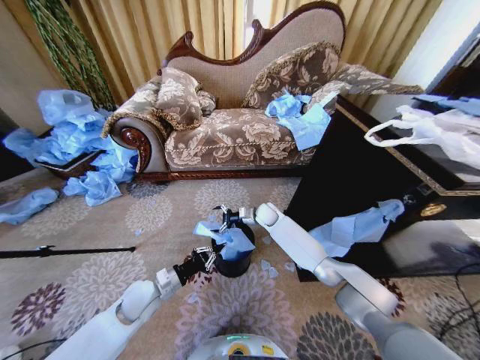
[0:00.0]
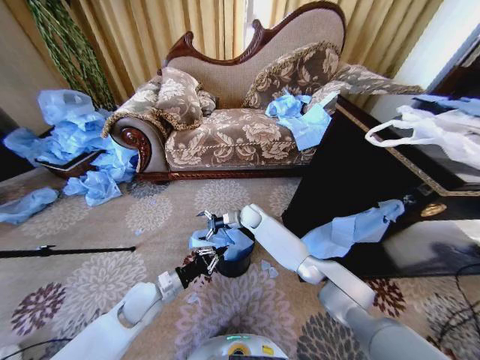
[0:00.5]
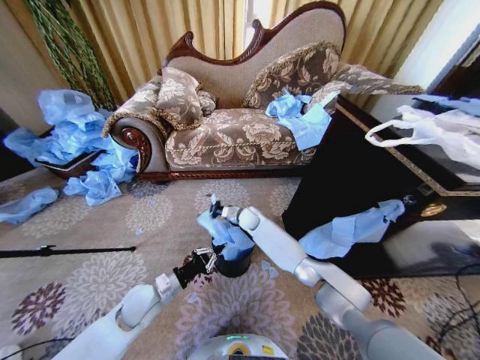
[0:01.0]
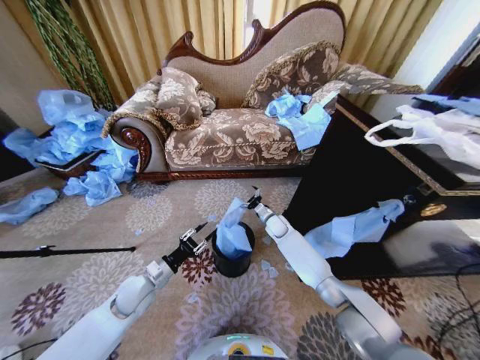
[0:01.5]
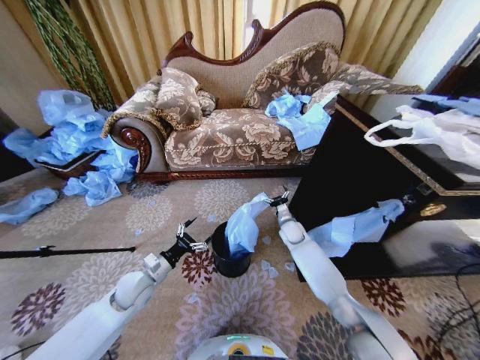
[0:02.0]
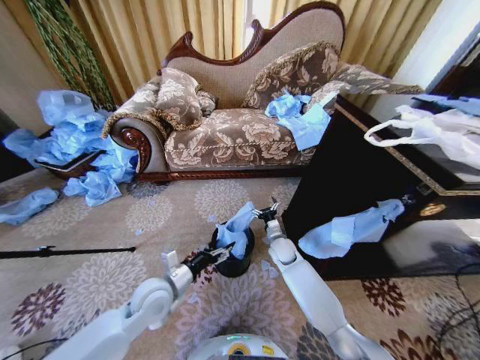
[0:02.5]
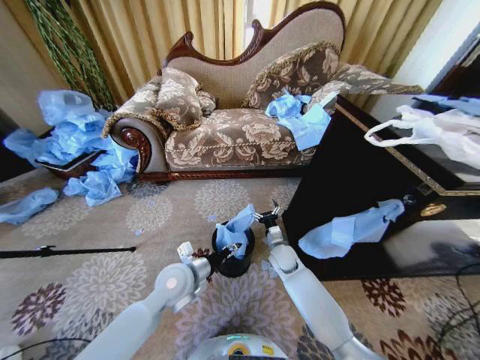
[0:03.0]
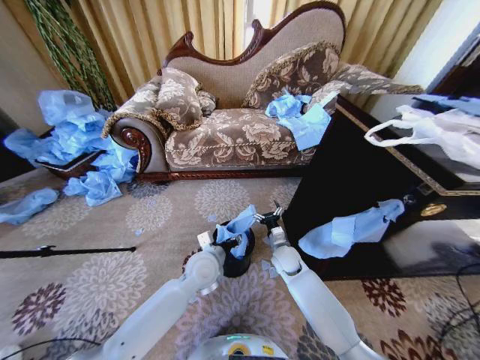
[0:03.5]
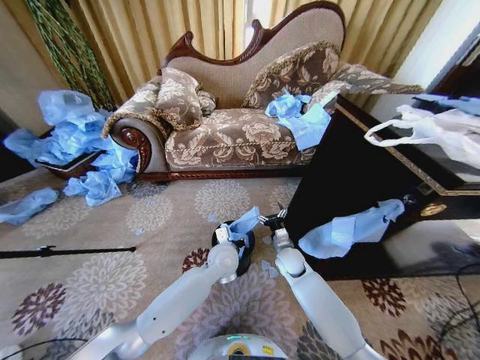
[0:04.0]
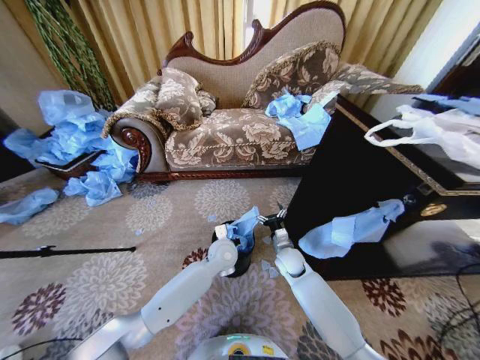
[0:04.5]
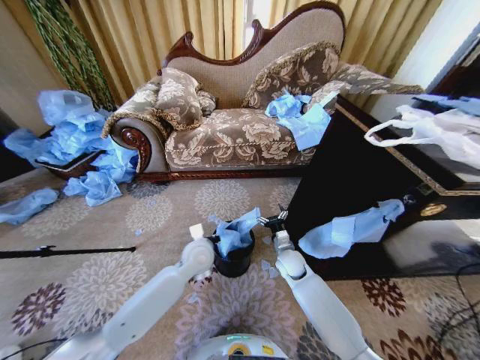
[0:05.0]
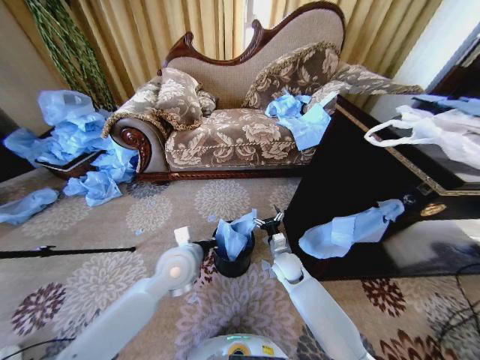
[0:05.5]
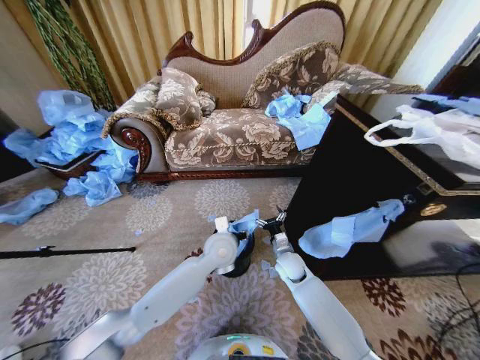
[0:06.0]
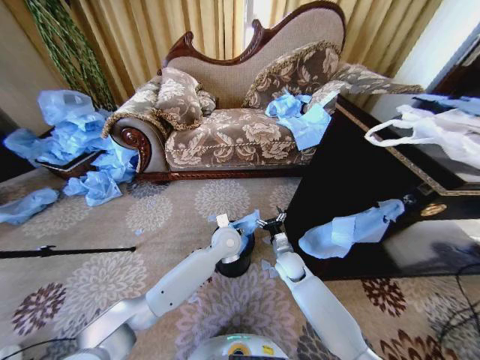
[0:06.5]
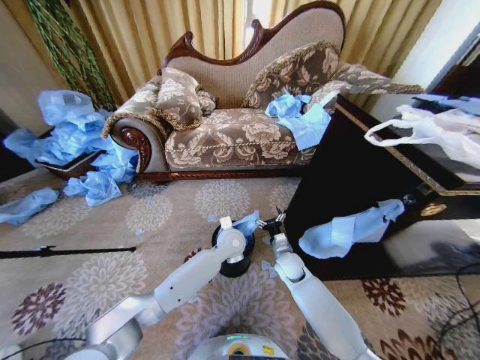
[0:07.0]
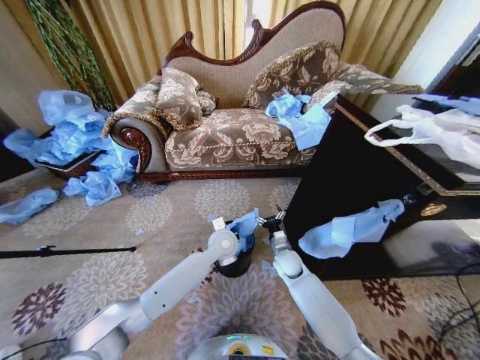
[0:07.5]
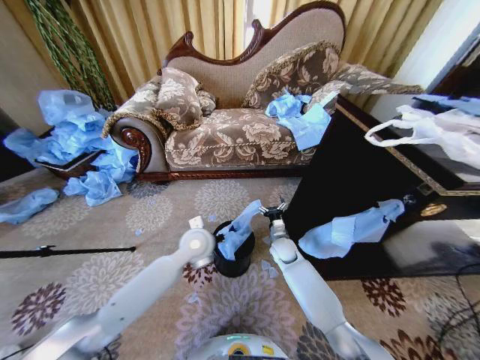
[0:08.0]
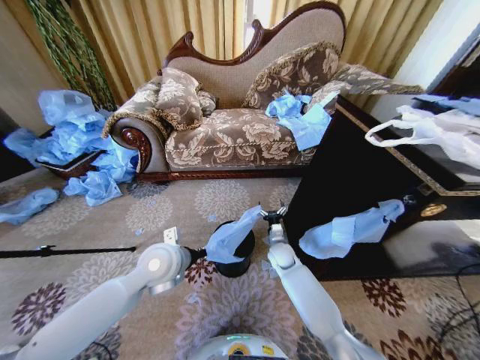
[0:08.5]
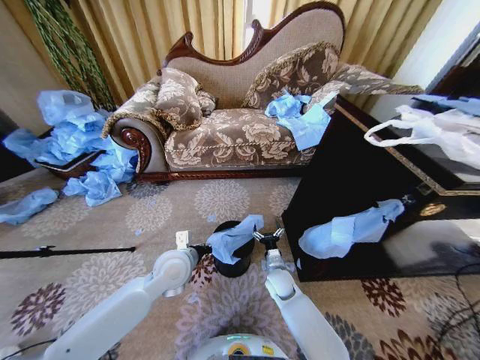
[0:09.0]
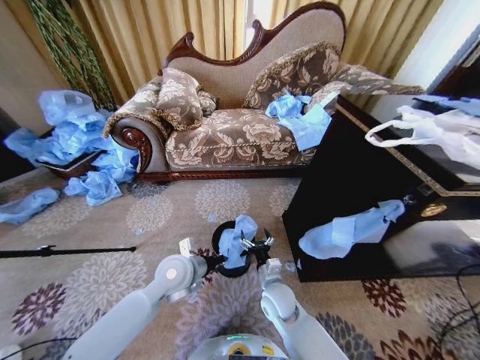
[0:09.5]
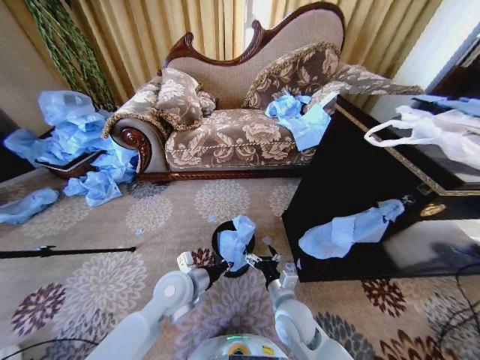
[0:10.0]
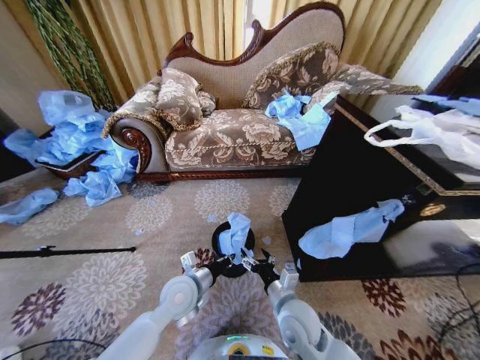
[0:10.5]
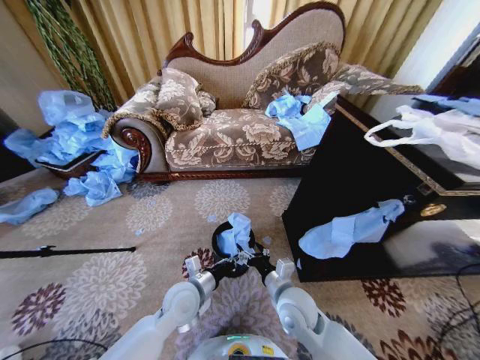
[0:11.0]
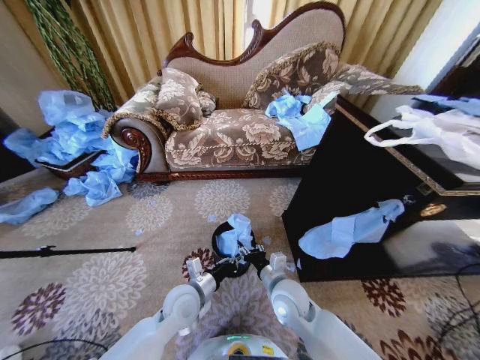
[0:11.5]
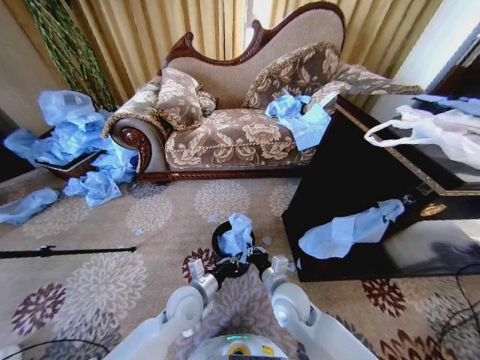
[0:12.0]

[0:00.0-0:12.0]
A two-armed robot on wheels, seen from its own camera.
Task of the whole recording: Place a garbage bag over the trash bin.
0:00.0 to 0:02.0: The right gripper goes approximately 10 cm to the right and downward. The left gripper opens its fingers.
0:02.0 to 0:04.0: The left gripper is displaced to the right by approximately 25 cm, and closes up. The right gripper goes about 10 cm backward.
0:04.0 to 0:06.0: The left gripper heads upward, covering approximately 5 cm, reaches approximately 10 cm to the left, then returns, and closes and opens again.
0:06.0 to 0:08.0: The left gripper shifts some 5 cm to the left, and closes up. The right gripper travels forward by about 5 cm.
0:08.0 to 0:10.0: The right gripper moves backward, about 25 cm. The left gripper travels backward by some 10 cm.
0:10.0 to 0:12.0: The right gripper closes up, while the left gripper heads downward, covering approximately 5 cm.

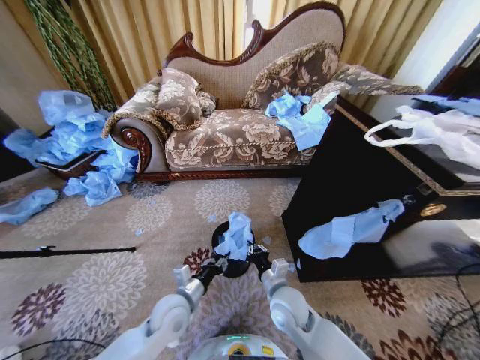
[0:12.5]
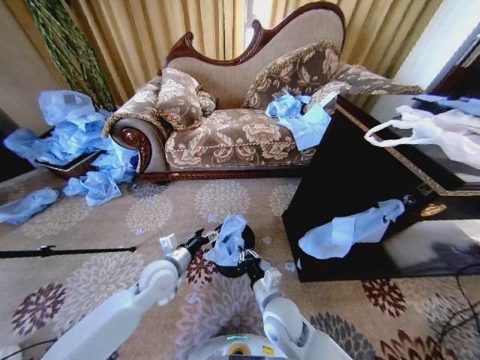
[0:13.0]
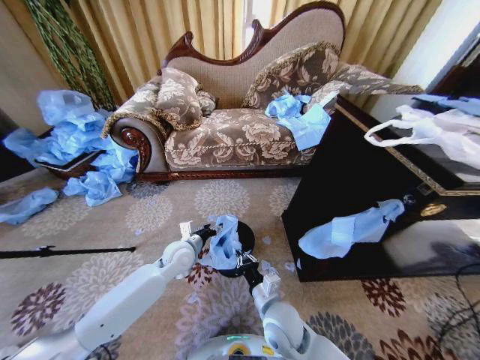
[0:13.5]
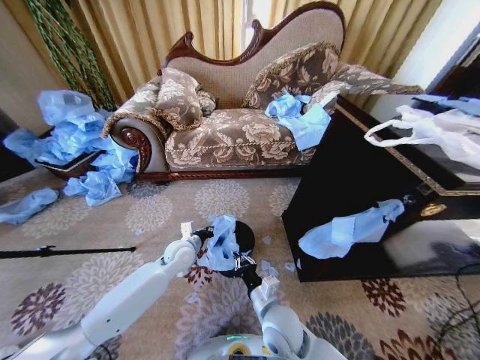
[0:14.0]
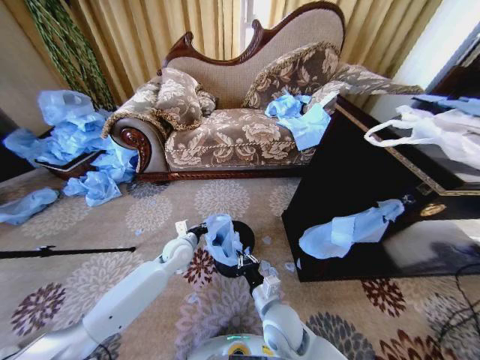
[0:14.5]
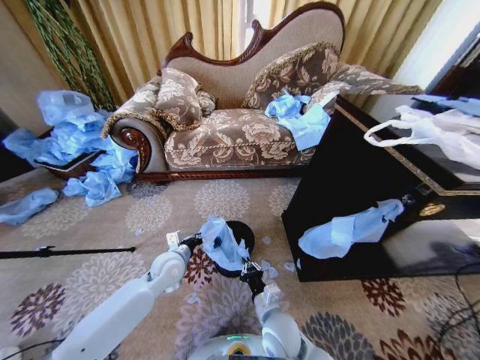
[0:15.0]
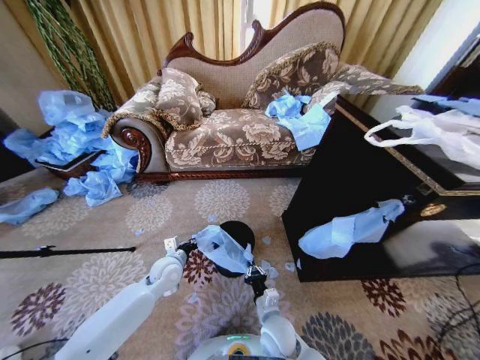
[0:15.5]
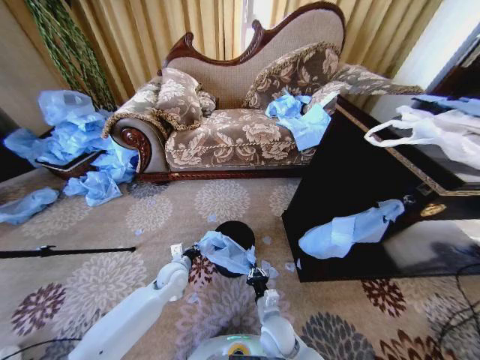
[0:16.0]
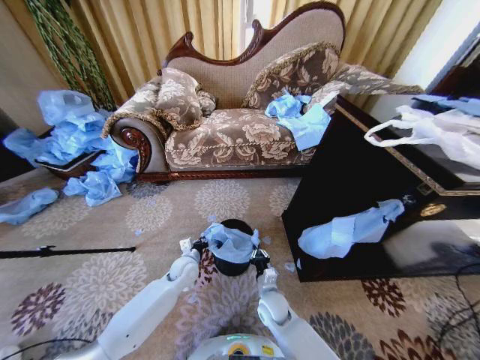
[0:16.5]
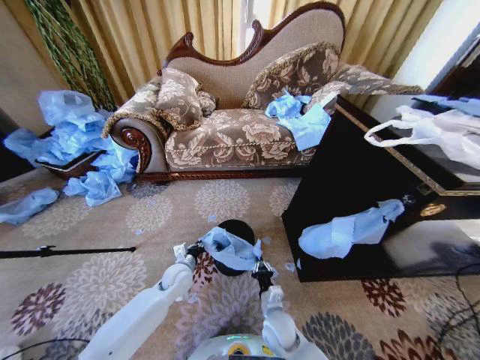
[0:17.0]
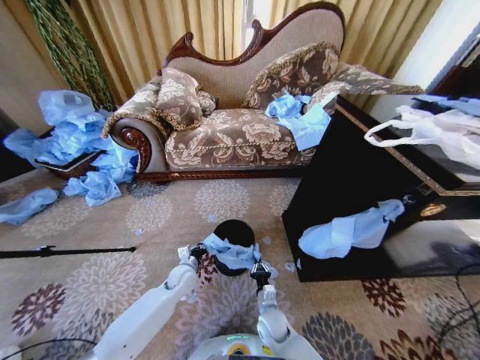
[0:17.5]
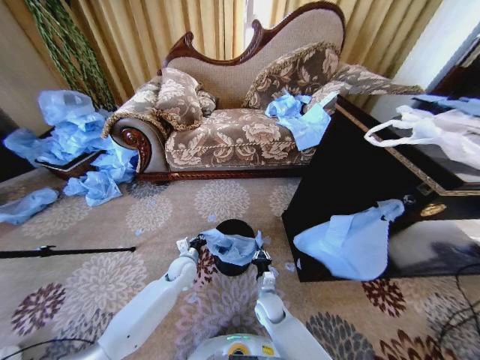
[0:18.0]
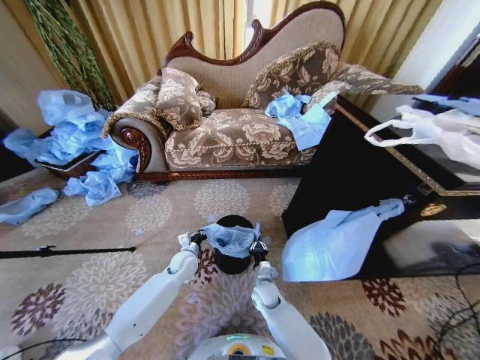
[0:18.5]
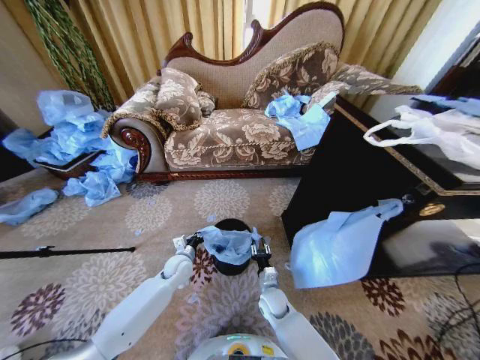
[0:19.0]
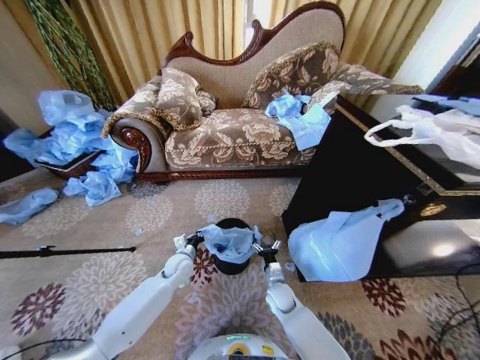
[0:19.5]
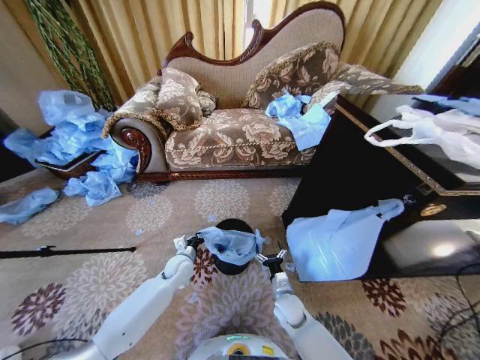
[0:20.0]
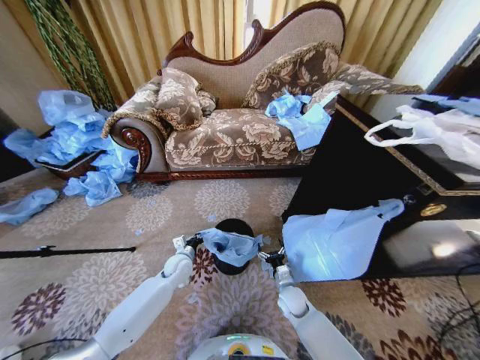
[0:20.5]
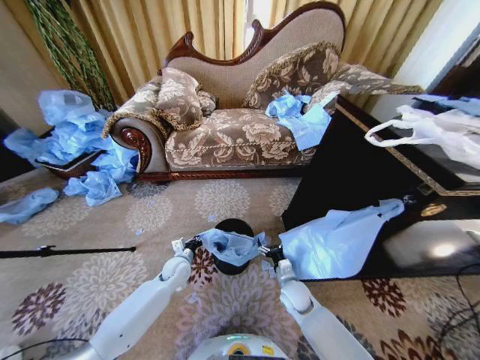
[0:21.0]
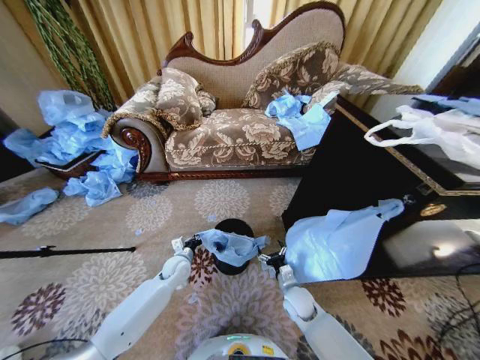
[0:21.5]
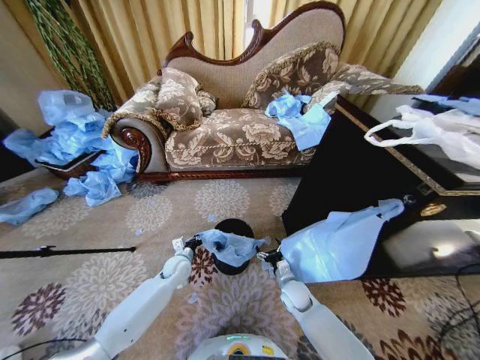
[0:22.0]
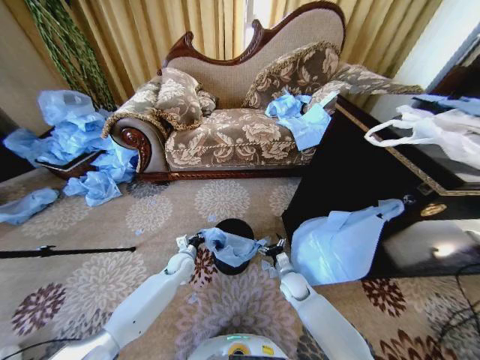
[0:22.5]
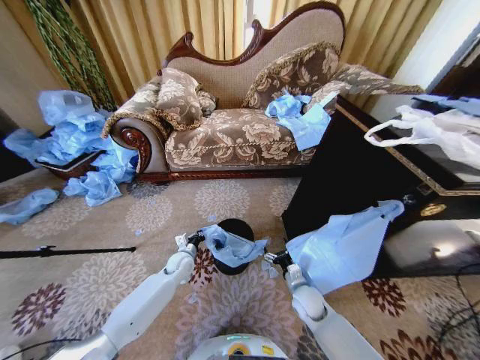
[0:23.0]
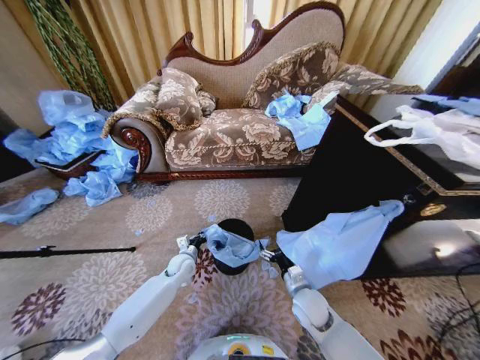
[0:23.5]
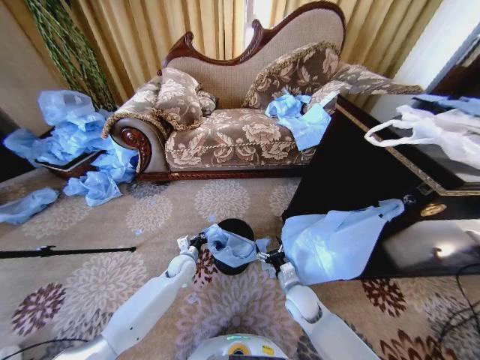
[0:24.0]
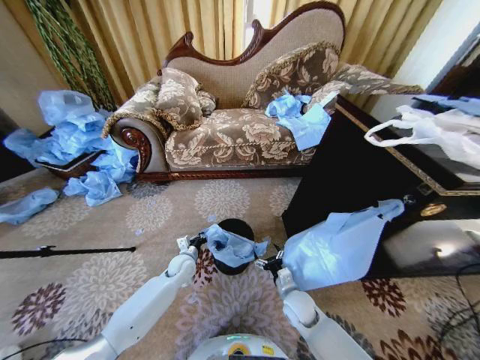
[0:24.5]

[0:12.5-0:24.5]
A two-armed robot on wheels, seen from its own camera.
Task of the whole recording: Place a garbage bag over the trash bin.
0:12.5 to 0:14.5: The left gripper goes some 15 cm forward, and opens, then closes once more.
0:14.5 to 0:16.5: The right gripper shifts some 15 cm downward and forward, while the left gripper heads downward, covering some 10 cm.
0:16.5 to 0:18.5: The right gripper goes approximately 5 cm forward.
0:18.5 to 0:20.5: The right gripper heads to the right, covering approximately 10 cm, and opens up.
0:20.5 to 0:22.5: The right gripper shifts by approximately 5 cm.
0:22.5 to 0:24.5: The right gripper moves backward, roughly 10 cm.

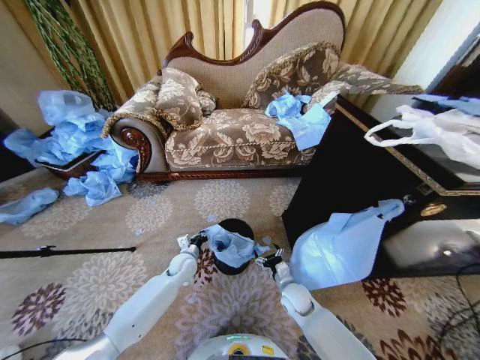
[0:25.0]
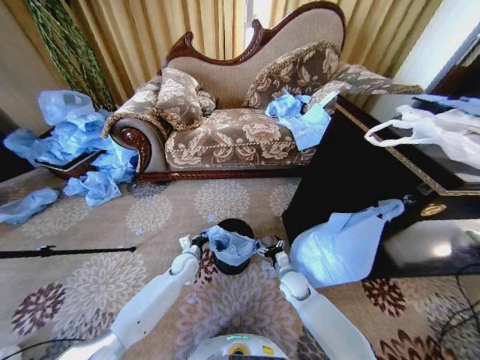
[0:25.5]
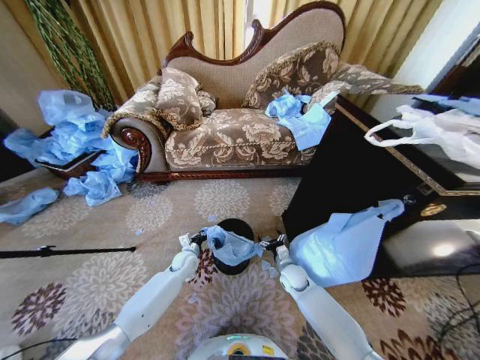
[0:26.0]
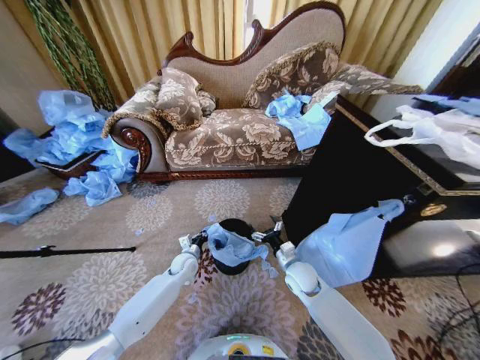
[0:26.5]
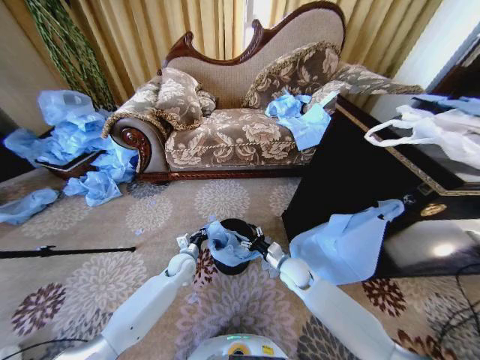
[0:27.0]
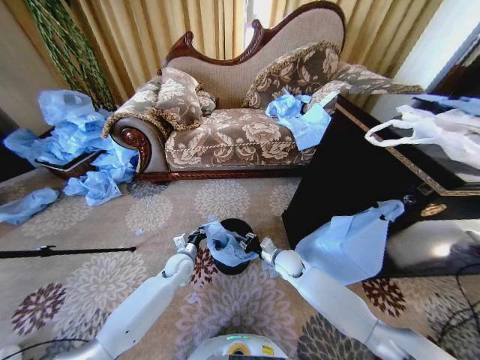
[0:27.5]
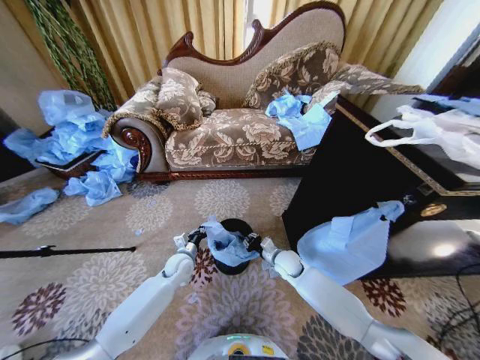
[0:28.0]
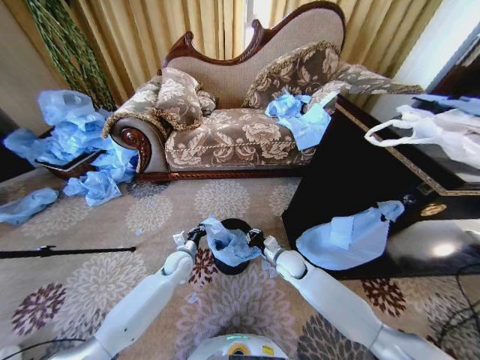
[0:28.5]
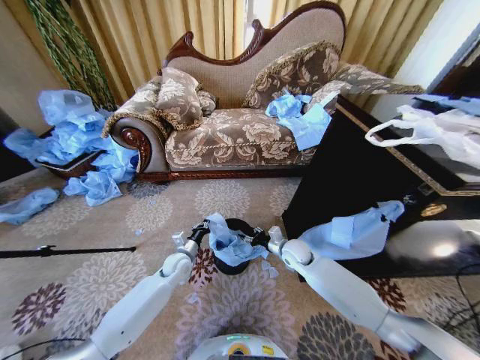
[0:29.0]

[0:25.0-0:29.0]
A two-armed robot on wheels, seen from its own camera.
Task of the whole recording: Place a garbage bag over the trash bin.
0:25.0 to 0:27.0: The right gripper shifts about 10 cm upward and forward.
0:27.0 to 0:29.0: The right gripper moves forward, some 5 cm, and closes, then opens again.
